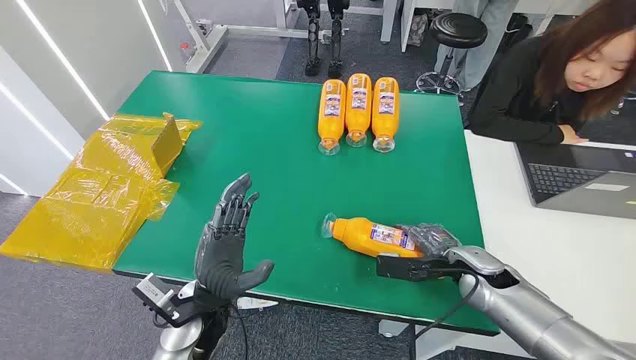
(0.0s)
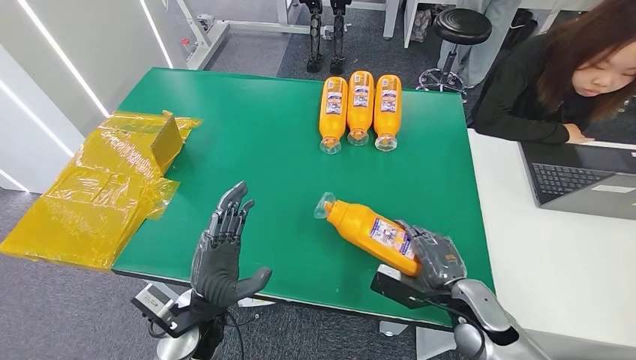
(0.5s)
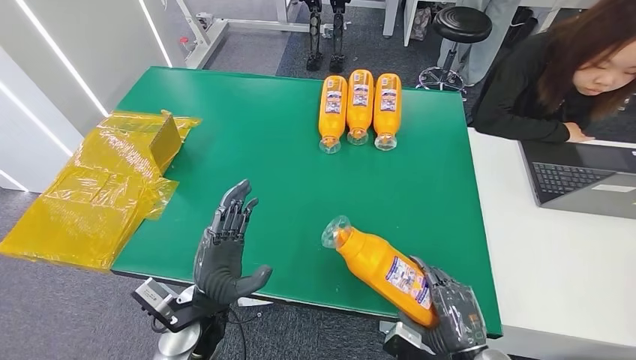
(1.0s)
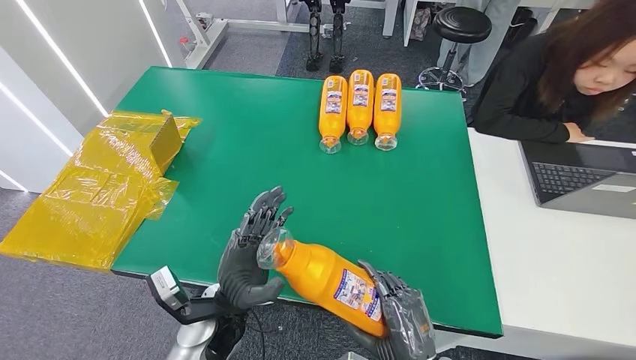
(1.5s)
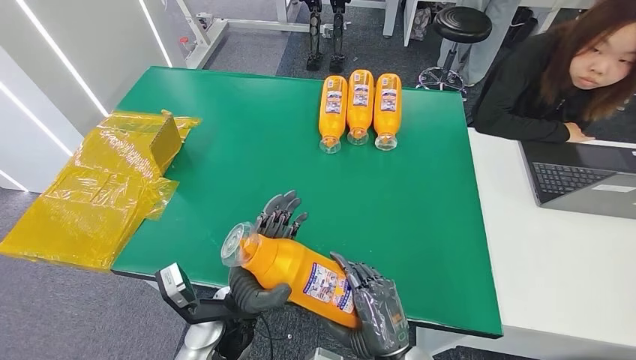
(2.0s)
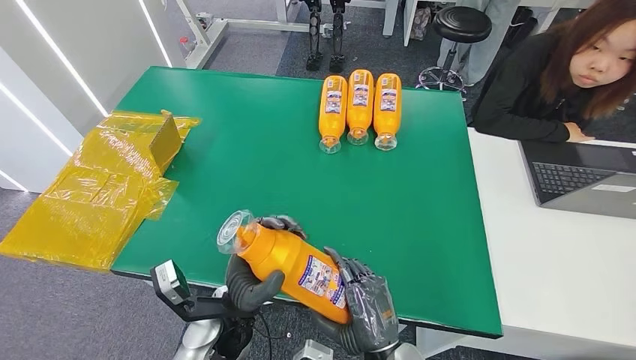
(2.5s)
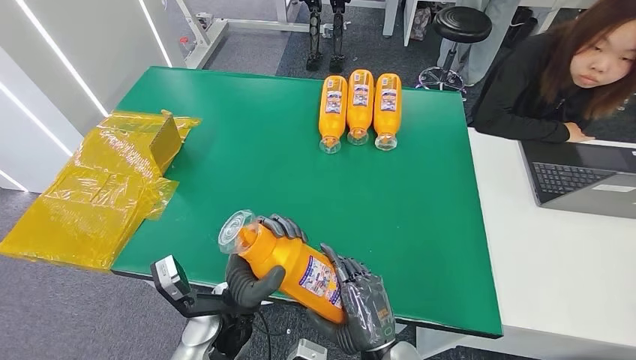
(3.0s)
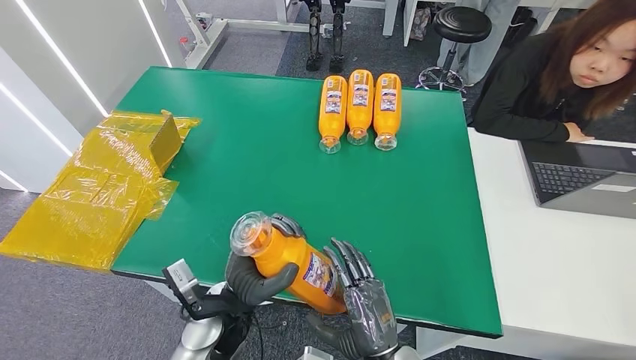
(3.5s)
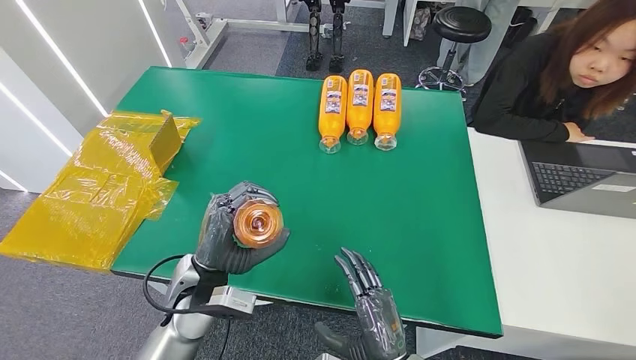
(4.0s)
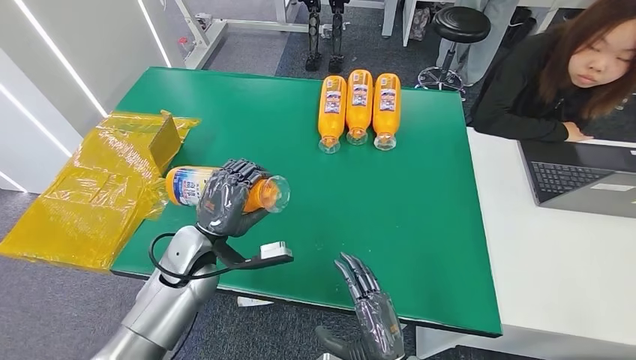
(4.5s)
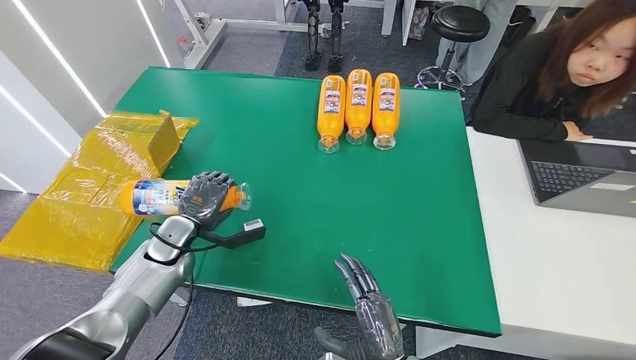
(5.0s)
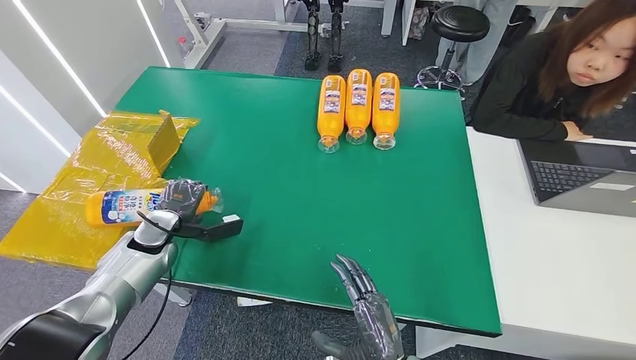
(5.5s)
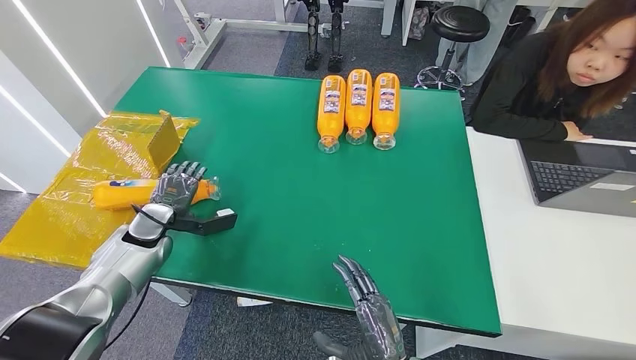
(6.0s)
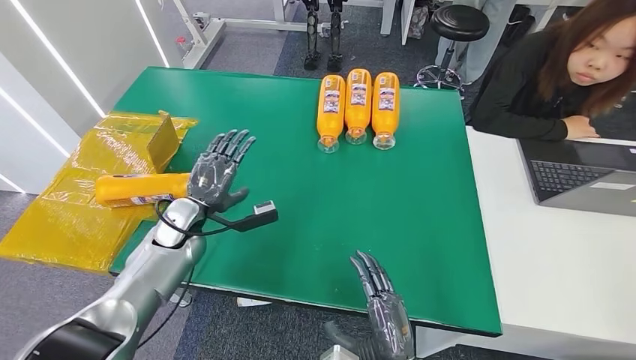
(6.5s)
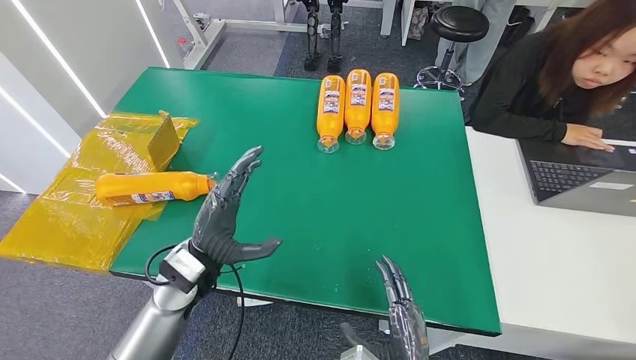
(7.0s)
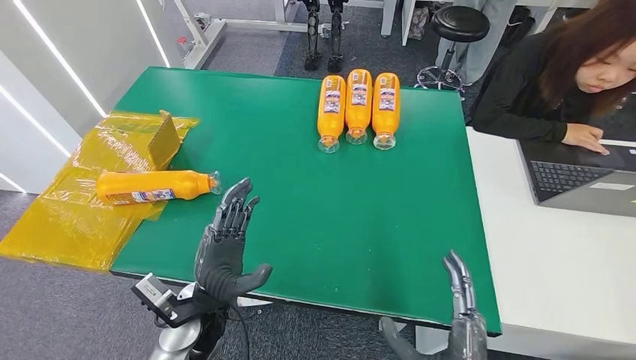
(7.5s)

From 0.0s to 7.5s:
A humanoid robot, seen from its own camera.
Step, from 0.0s to 1.5s: Pick up the bottle from the table.
Step, from 2.0s to 7.5s: Turn the bottle to the front side.
From 2.0s to 4.0s: The left hand is displaced to the left by approximately 5 cm.
From 4.0s to 5.5s: The left hand travels to the left and forward by about 20 cm.
From 5.5s to 7.5s: The right hand is displaced to the right and backward by roughly 10 cm. Meanwhile the left hand shifts approximately 25 cm to the right and backward.

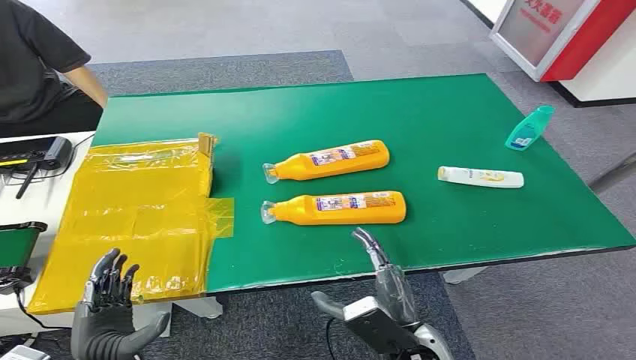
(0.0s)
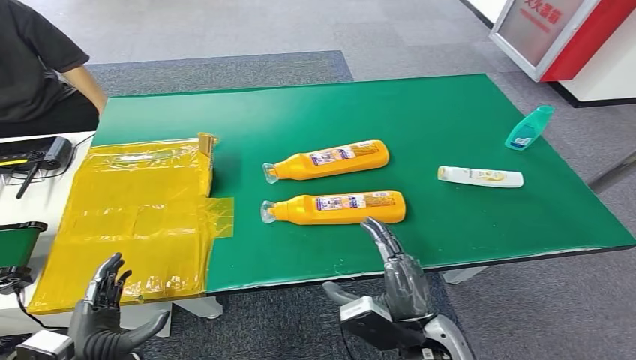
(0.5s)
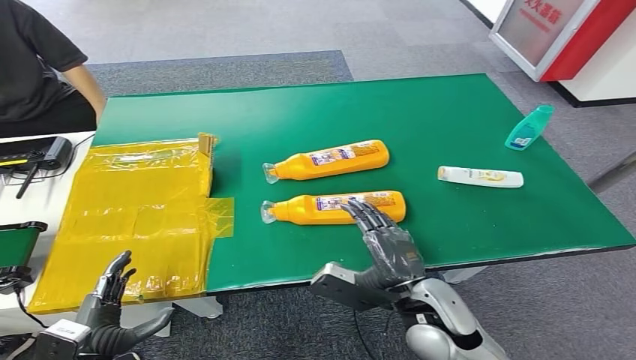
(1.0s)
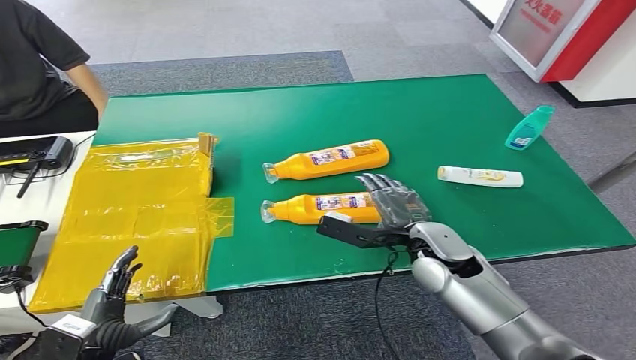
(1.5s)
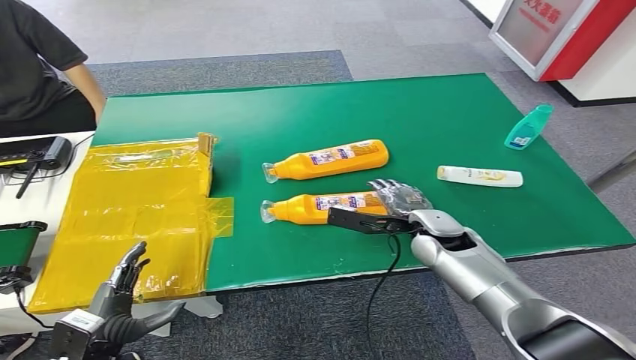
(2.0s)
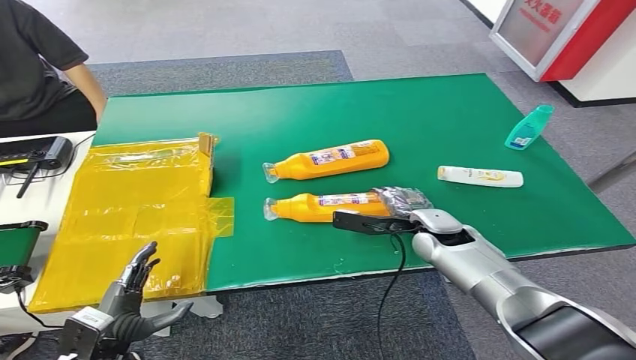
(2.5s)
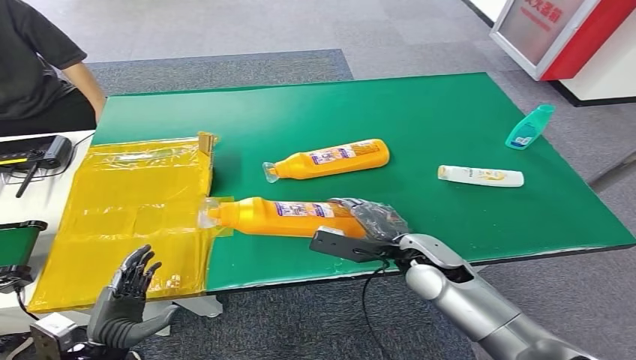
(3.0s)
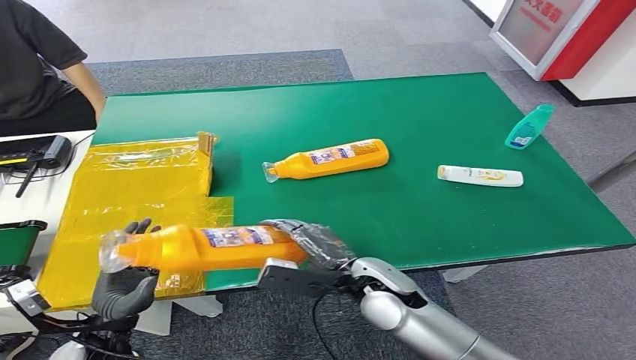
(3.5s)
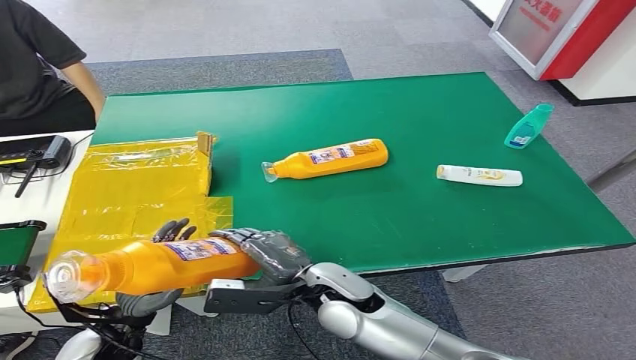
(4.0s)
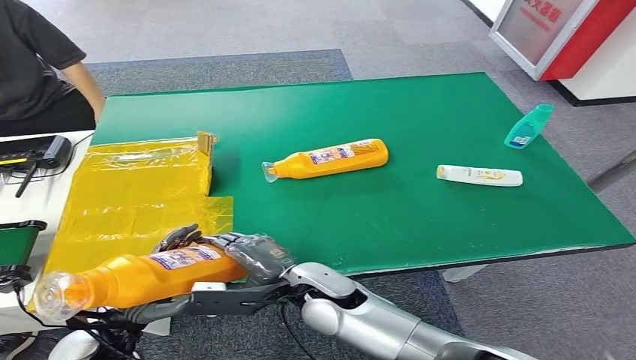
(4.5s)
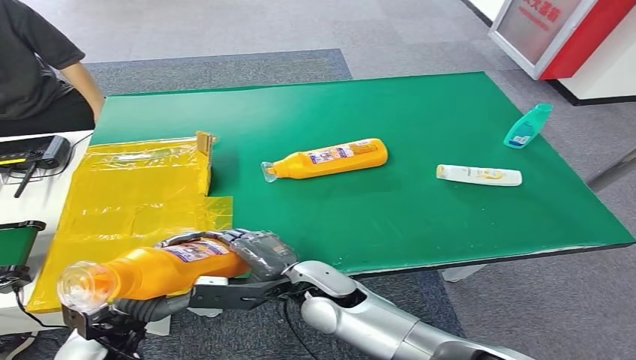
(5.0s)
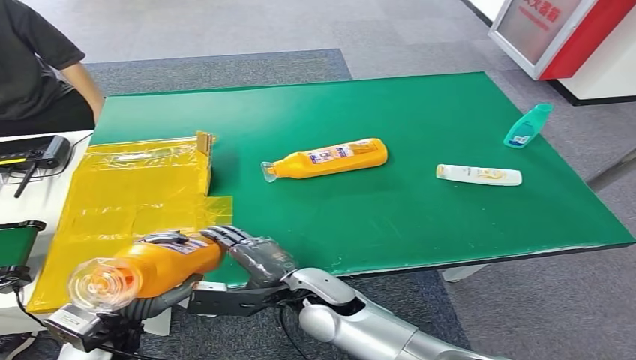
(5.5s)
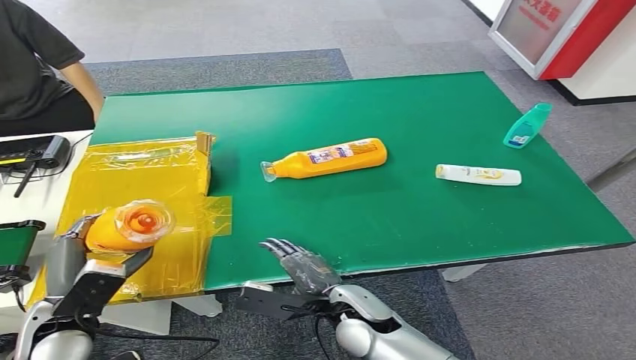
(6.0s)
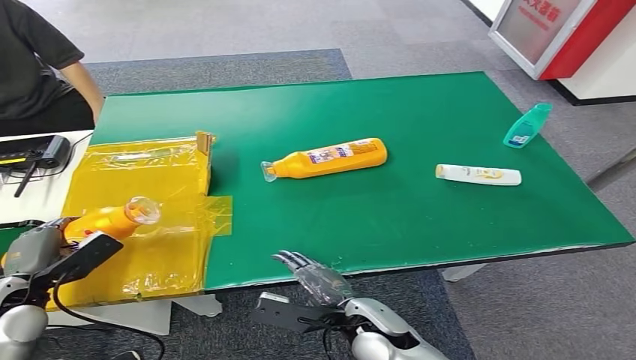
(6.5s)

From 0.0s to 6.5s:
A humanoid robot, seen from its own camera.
Step, from 0.0s to 3.0s: Pick up the bottle from the table.
Step, from 3.5s to 6.5s: Turn the bottle to the front side.
From 2.0s to 4.5s: The left hand shifts by some 5 cm; the right hand goes roughly 20 cm to the left and backward.
From 4.5s to 6.5s: The left hand travels to the left, forward and upward by some 15 cm. The right hand moves backward, to the right and downward, about 10 cm.

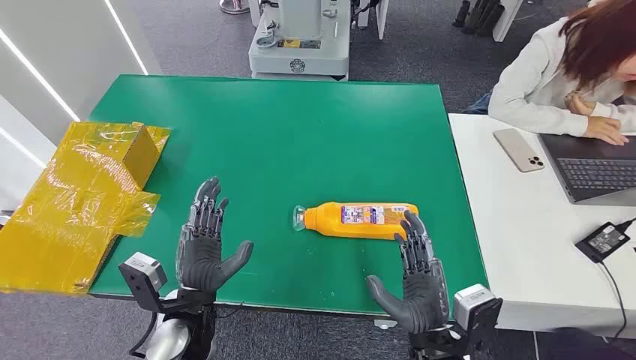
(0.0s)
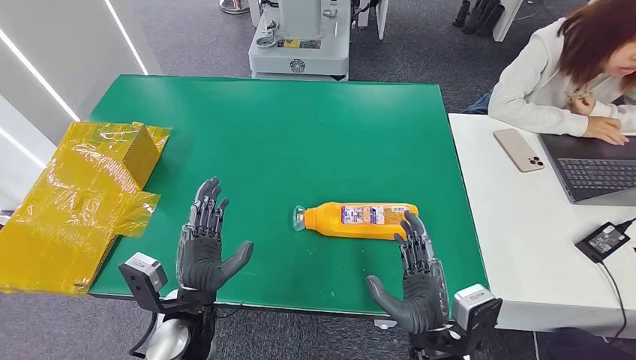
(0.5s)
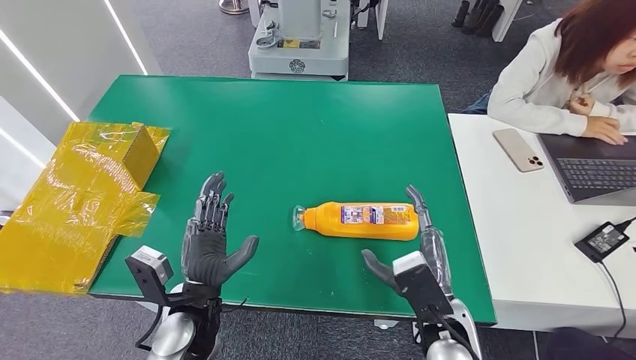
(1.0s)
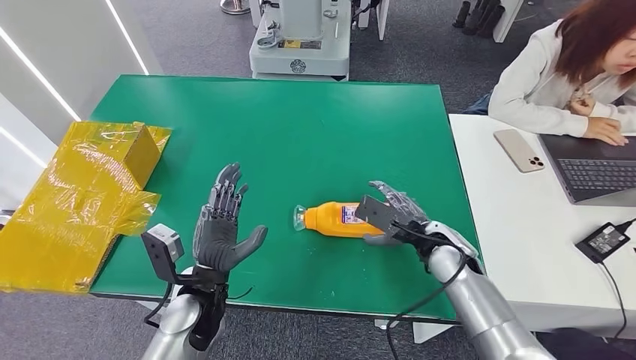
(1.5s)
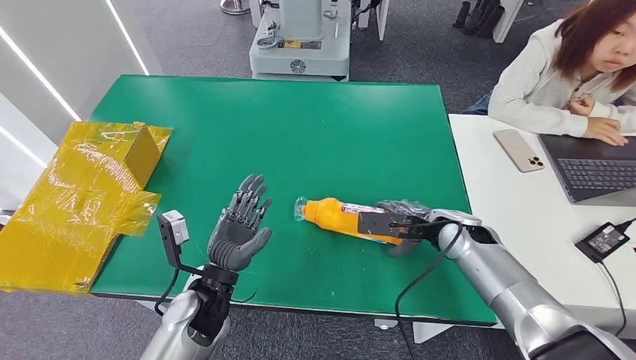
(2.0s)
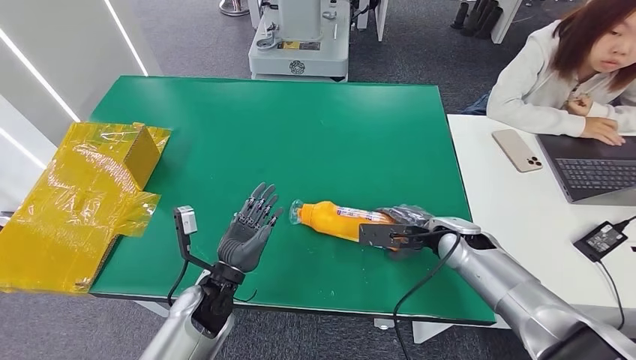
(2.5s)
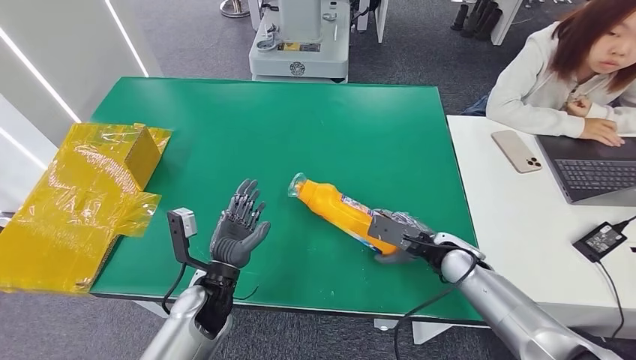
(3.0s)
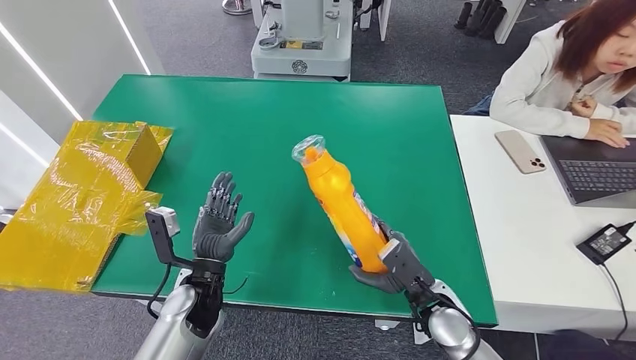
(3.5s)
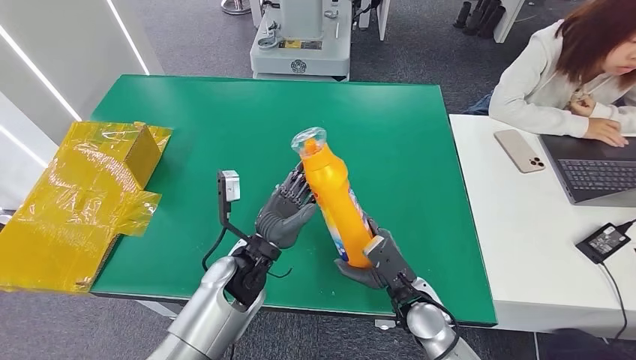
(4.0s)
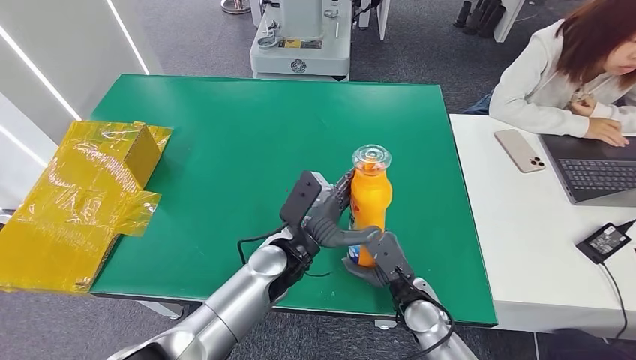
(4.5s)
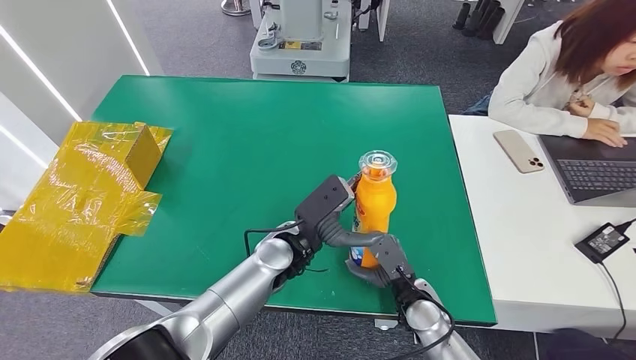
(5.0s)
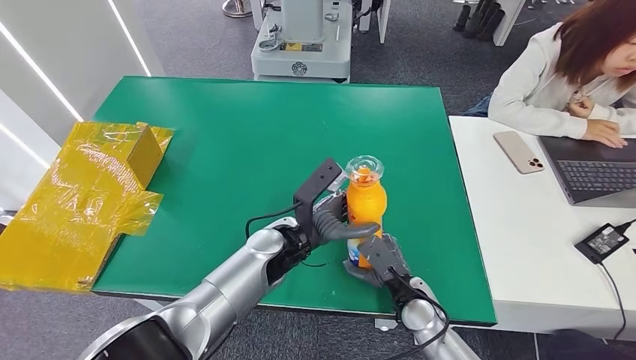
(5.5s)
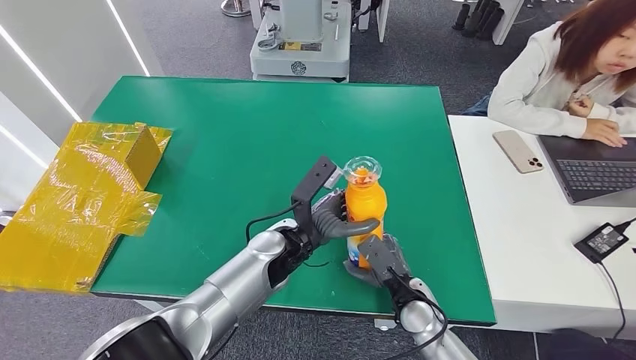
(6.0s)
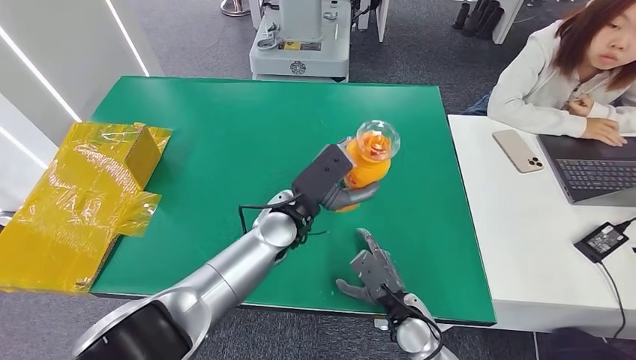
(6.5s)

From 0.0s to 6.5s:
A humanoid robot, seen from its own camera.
Step, from 0.0s to 4.0s: Pick up the bottle from the table.
From 2.0s to 4.5s: The left hand goes roughly 15 cm to the right and forward, while the right hand heads backward, downward and to the left, covering roughly 20 cm.
From 4.5s to 6.5s: The left hand changes place by about 5 cm.
